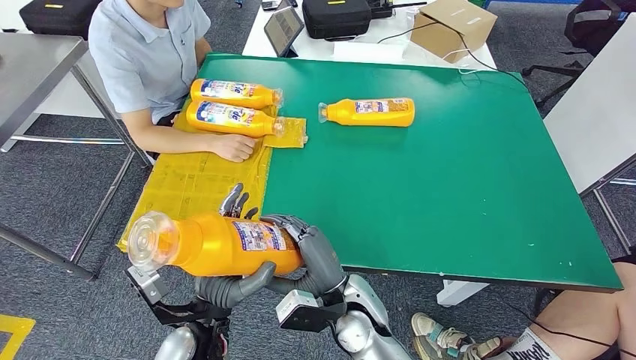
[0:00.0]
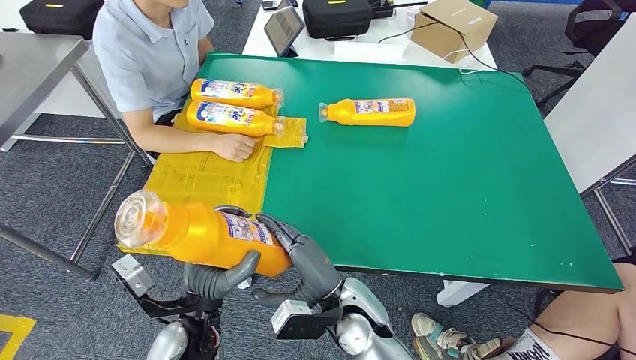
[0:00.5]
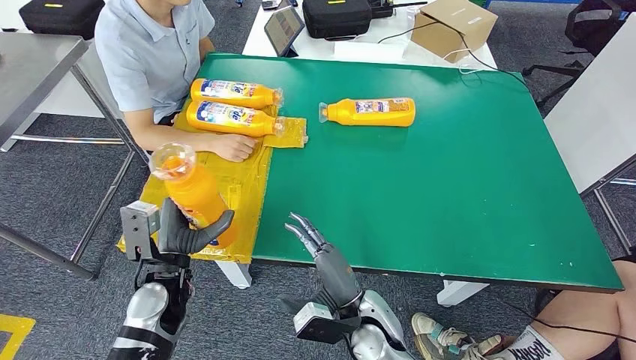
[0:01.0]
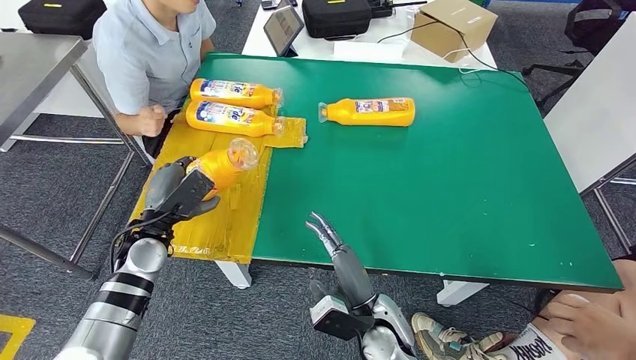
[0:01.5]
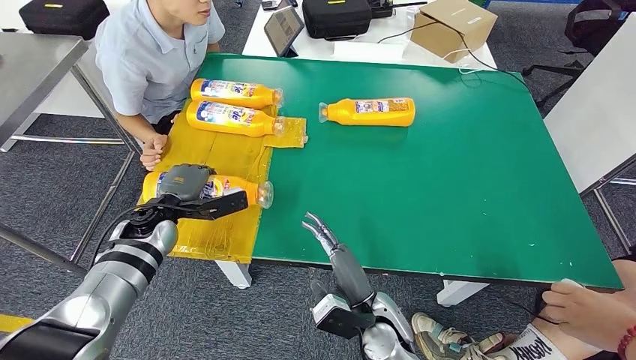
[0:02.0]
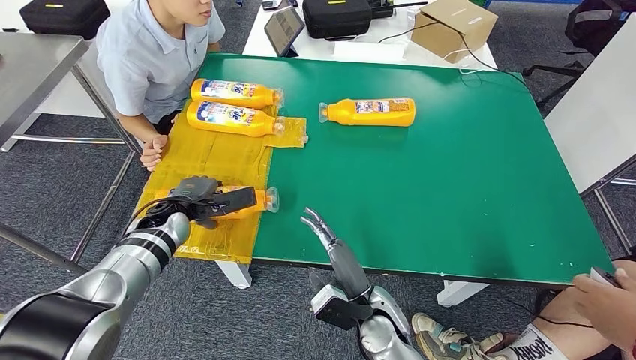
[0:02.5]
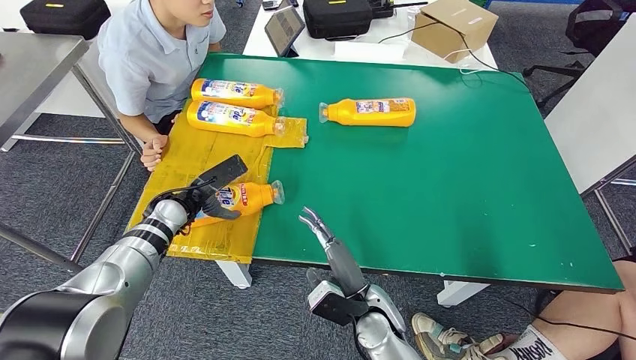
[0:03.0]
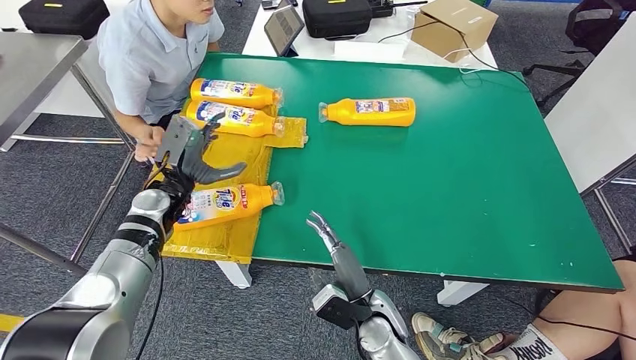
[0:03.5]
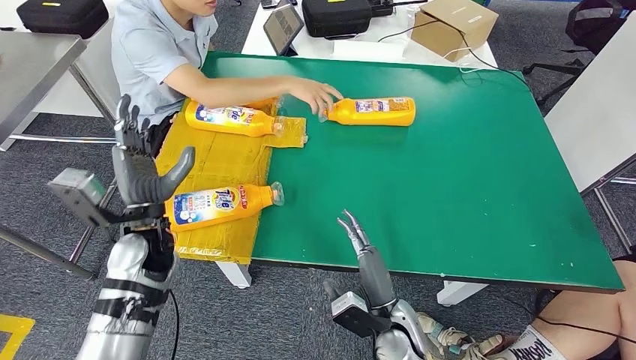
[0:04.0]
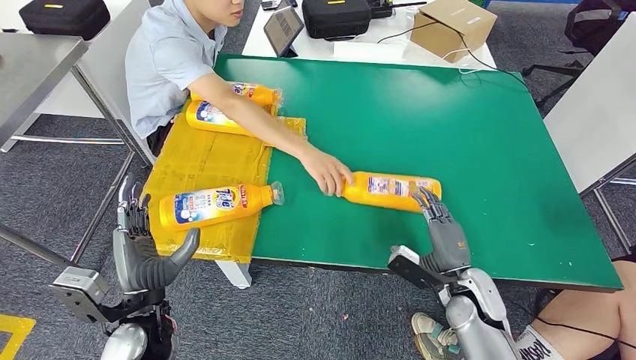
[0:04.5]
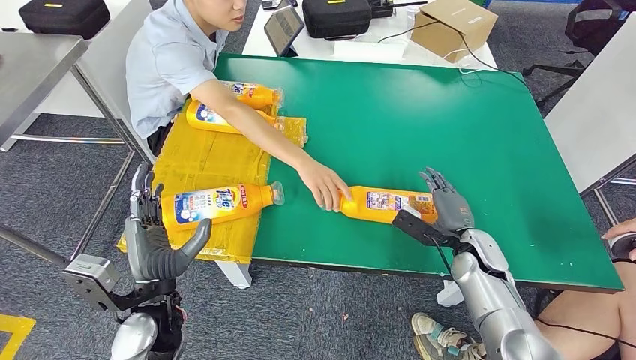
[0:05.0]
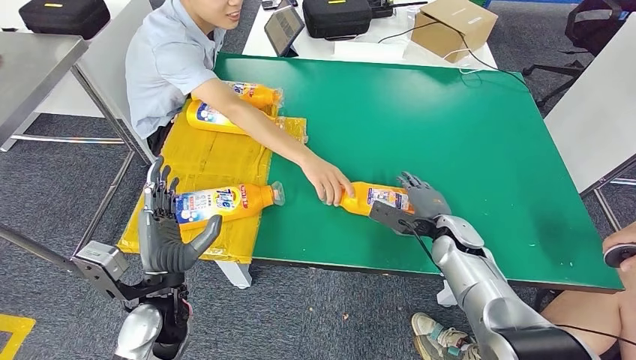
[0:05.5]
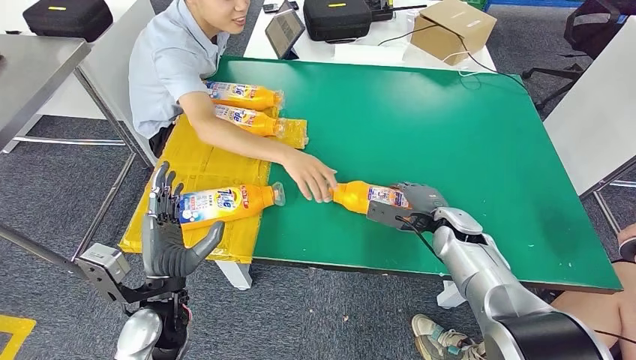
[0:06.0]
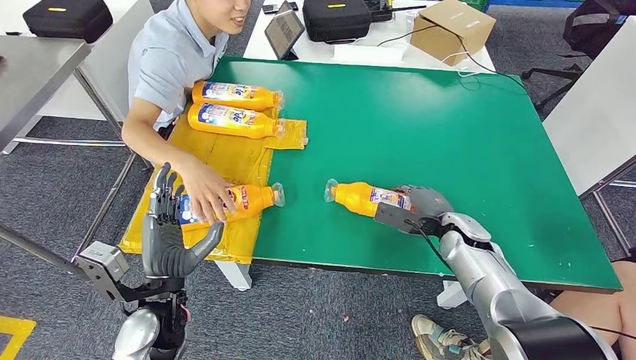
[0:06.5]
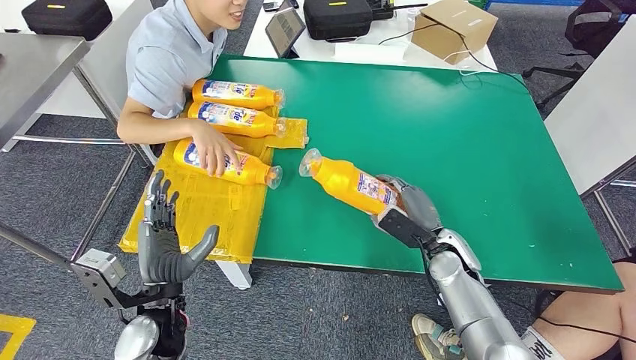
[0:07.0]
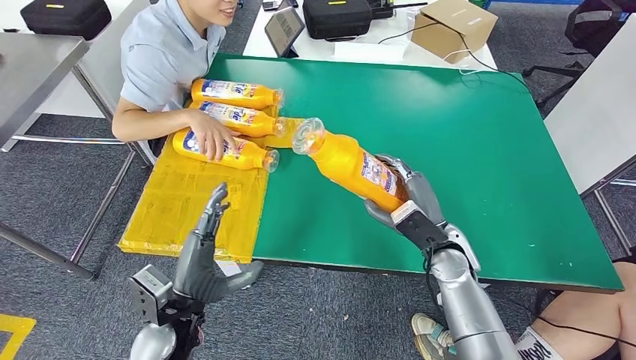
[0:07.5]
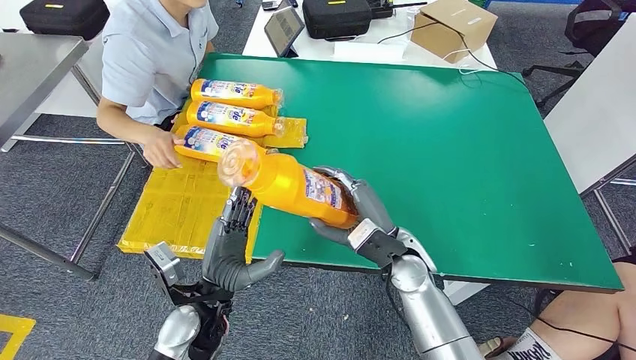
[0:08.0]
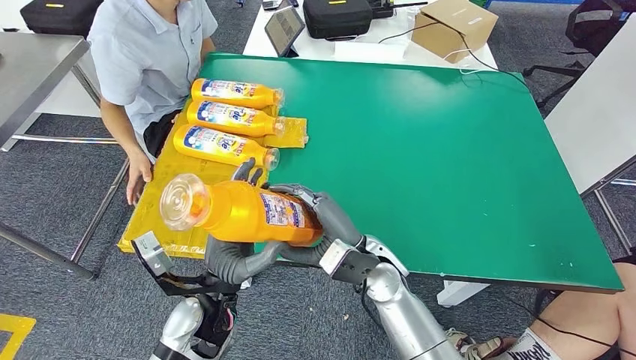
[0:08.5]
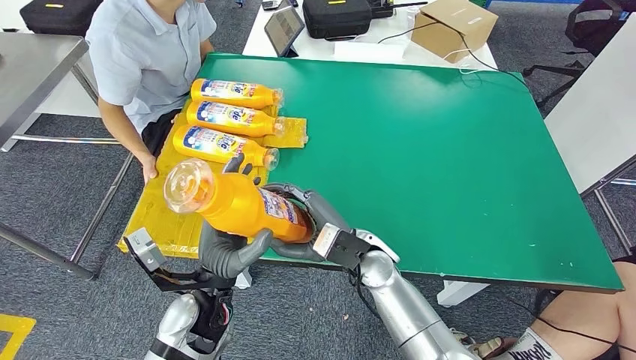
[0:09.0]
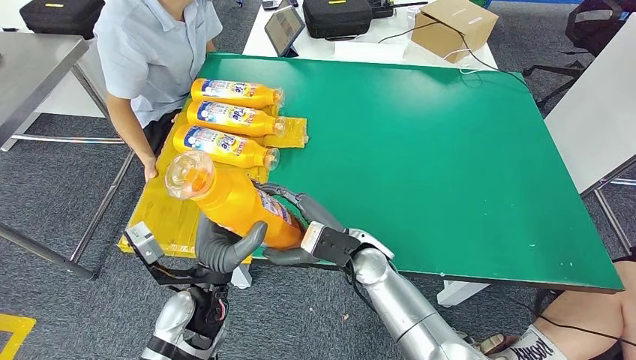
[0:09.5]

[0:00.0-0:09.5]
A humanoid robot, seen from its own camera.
Step, 0:00.5 to 0:03.5: Flip the fast-moving consumer goods bottle to the front side.
Step, 0:04.5 to 0:09.0: Pick up the fast-moving consumer goods bottle from the table.

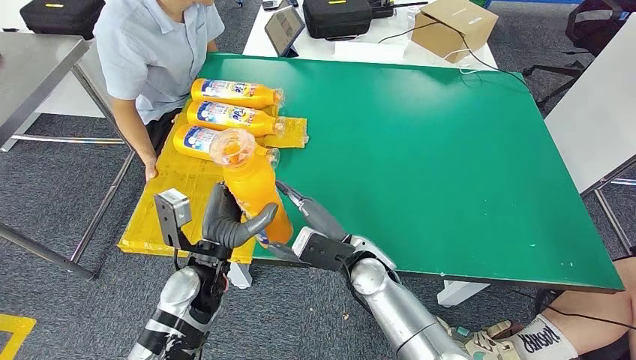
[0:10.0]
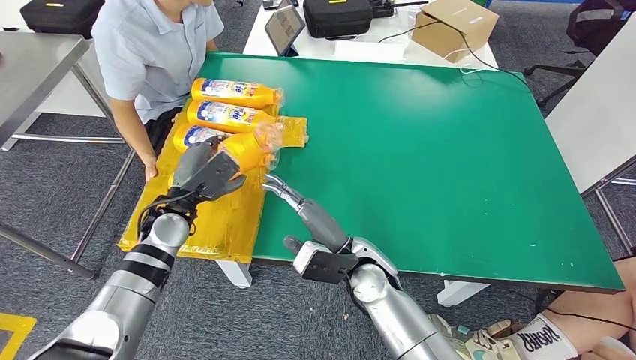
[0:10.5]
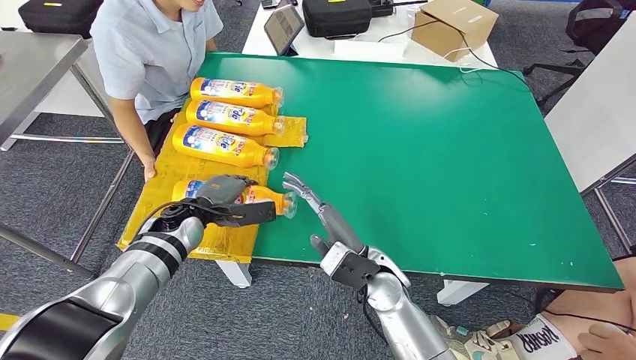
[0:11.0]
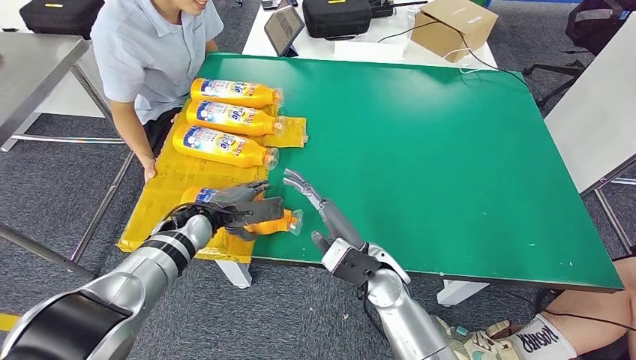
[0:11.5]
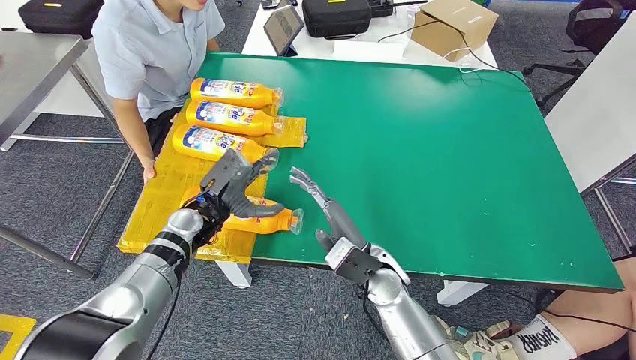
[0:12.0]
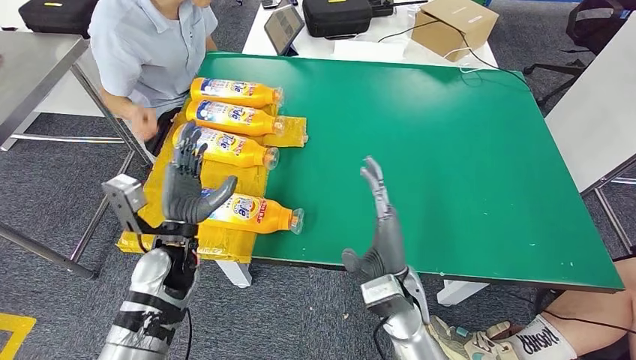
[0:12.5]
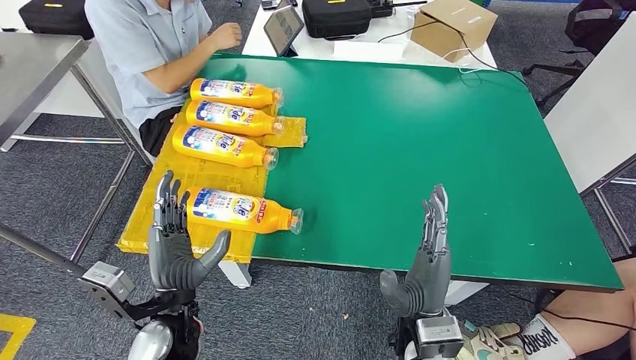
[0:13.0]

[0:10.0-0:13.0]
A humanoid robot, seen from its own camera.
Step, 0:10.0 to 0:13.0: Flip the fast-moving consumer goods bottle to the front side.
0:10.0 to 0:11.5: The left hand heads forward, covering approximately 10 cm.
0:11.5 to 0:13.0: The right hand travels backward and to the right by about 10 cm; the left hand travels backward by some 20 cm.
